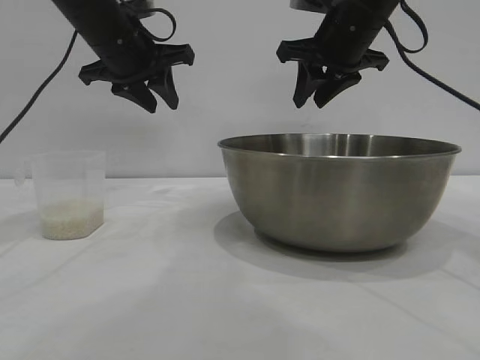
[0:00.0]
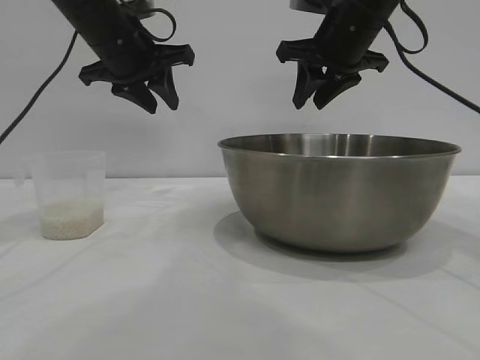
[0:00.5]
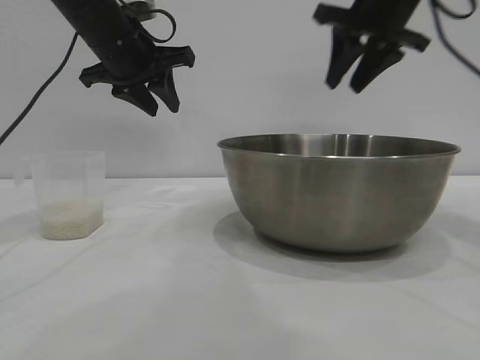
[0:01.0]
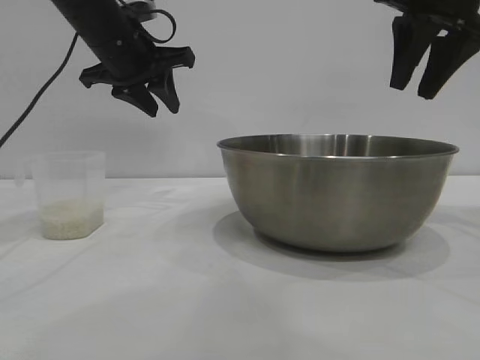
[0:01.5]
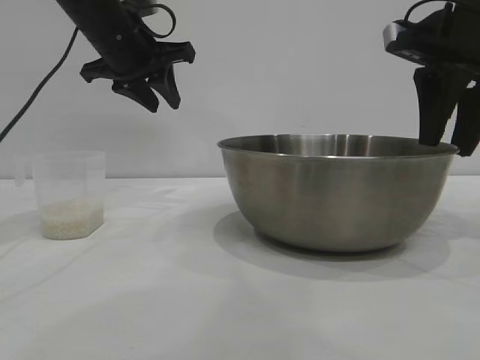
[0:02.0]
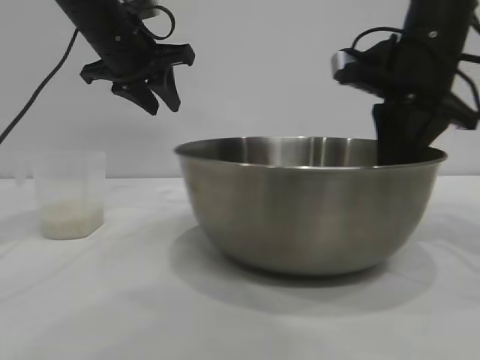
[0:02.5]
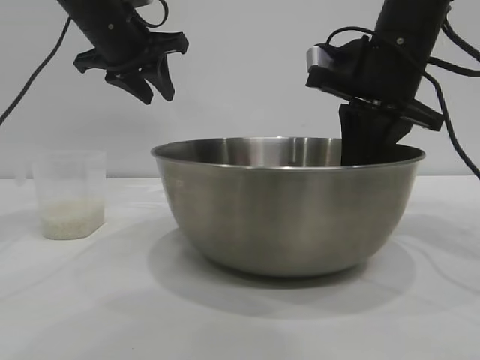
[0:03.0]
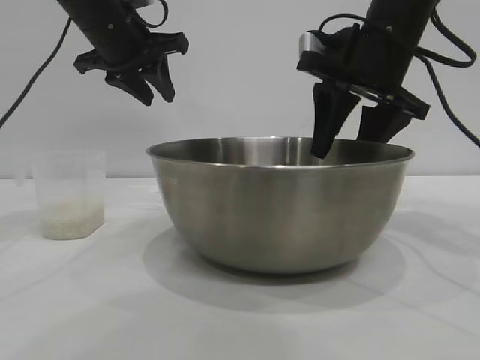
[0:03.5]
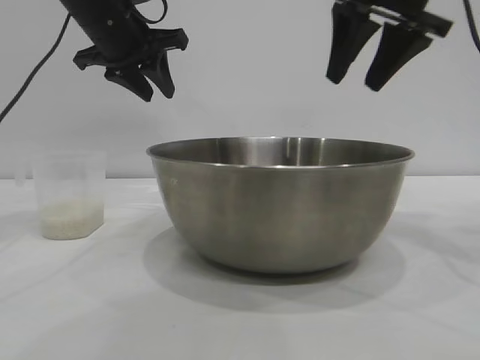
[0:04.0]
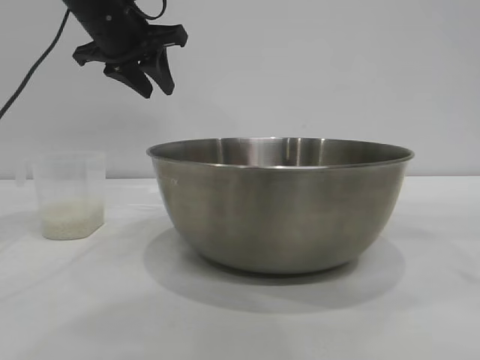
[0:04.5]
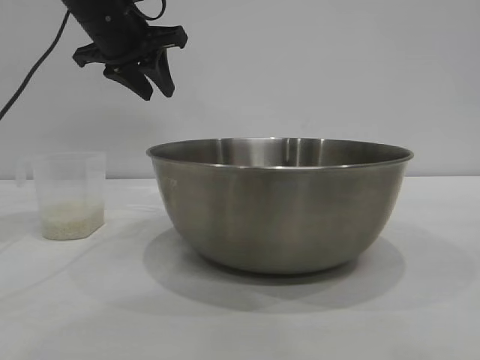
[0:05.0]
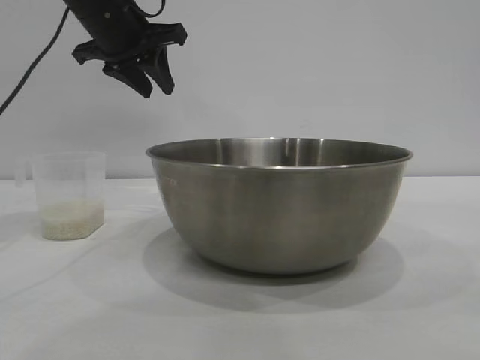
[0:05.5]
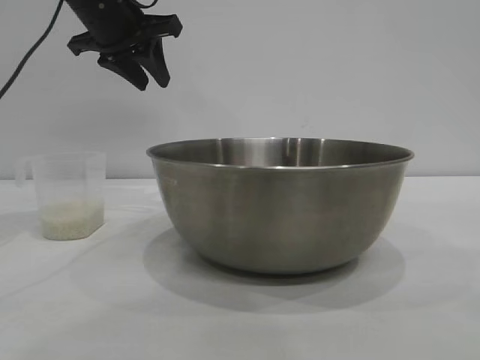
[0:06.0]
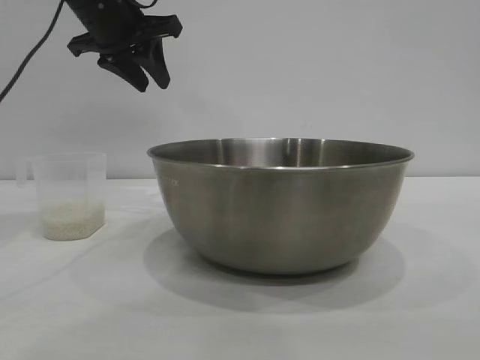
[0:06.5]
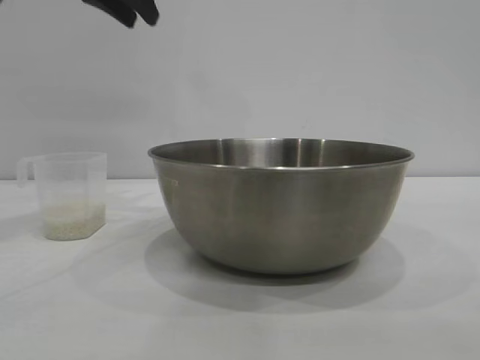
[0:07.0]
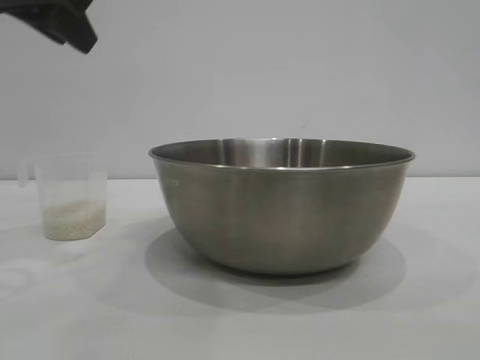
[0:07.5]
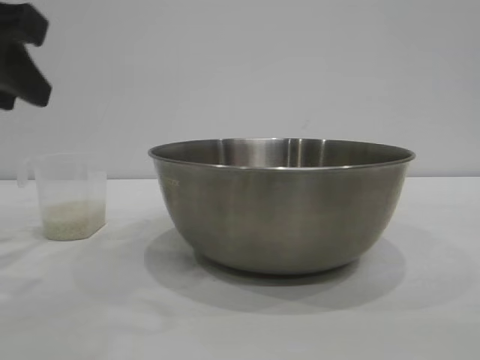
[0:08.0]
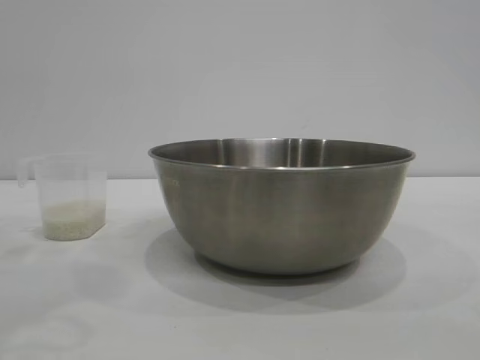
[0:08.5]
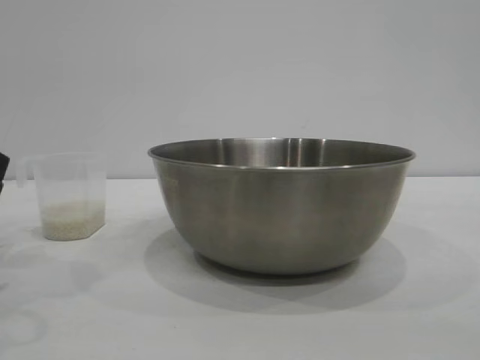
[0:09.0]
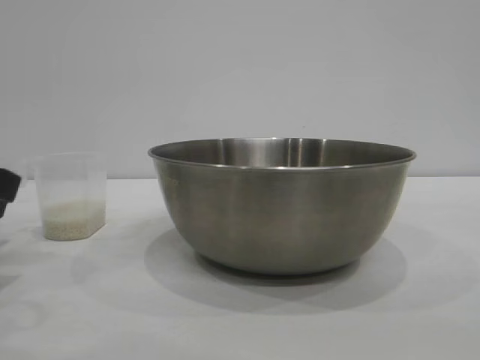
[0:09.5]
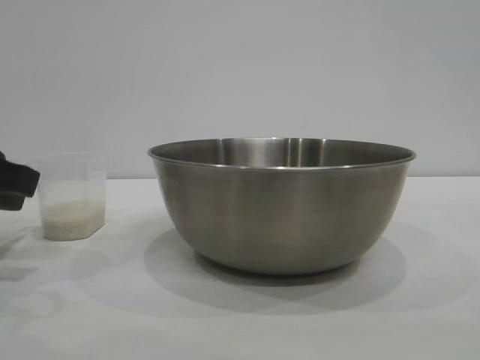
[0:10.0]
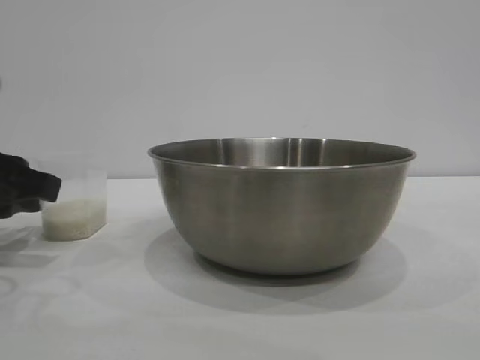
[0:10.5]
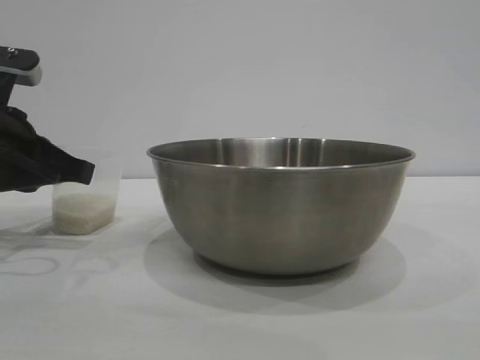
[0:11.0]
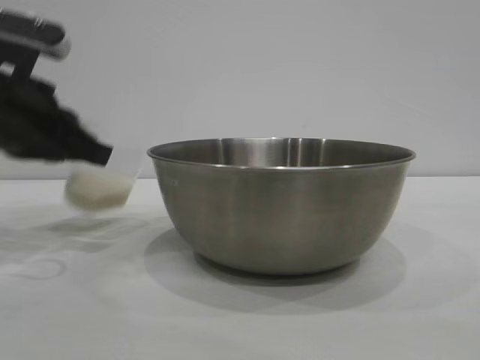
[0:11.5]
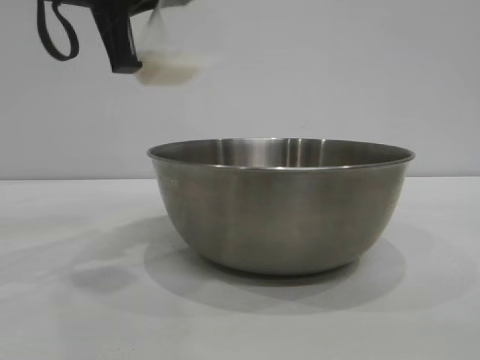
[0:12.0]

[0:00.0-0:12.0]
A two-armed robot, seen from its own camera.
Task of the whole recording: the right gripper grasp the rice container and place it in the center of the table, the left gripper grasp the rice scoop and pour the rice into the rice container.
Step, 0:00.0 to 0:03.5: Move the bowl to the center of view with the right gripper.
Step, 0:04.0 to 0:11.0: Pick up the cup with rice in it with the left gripper.

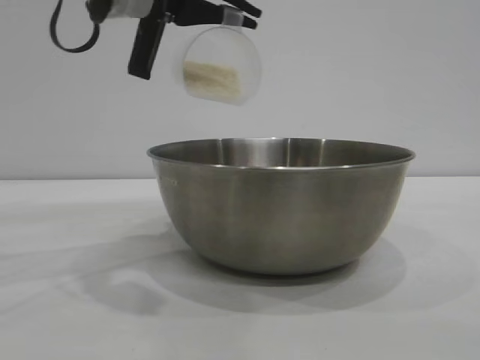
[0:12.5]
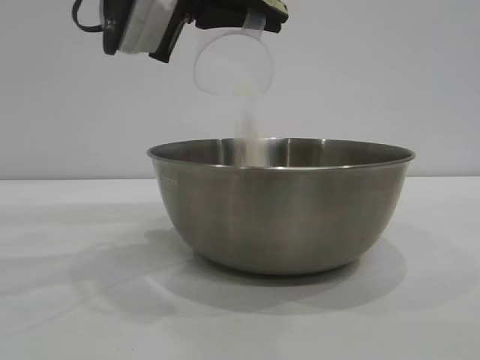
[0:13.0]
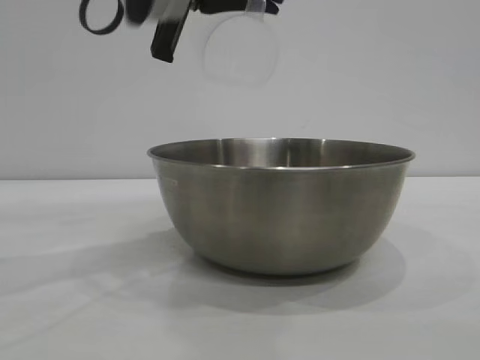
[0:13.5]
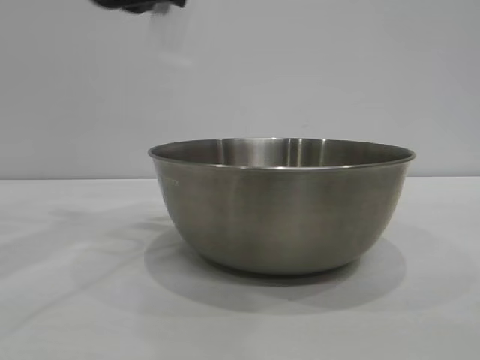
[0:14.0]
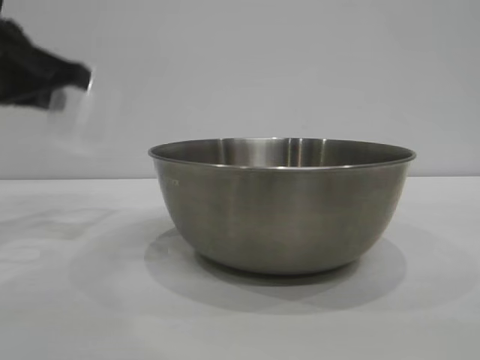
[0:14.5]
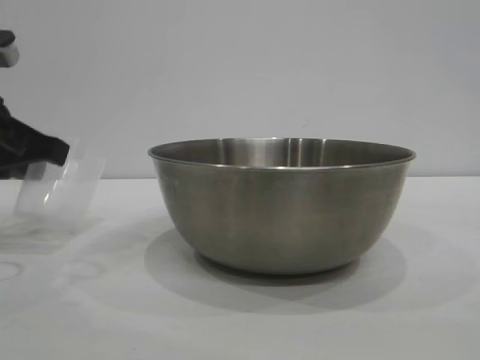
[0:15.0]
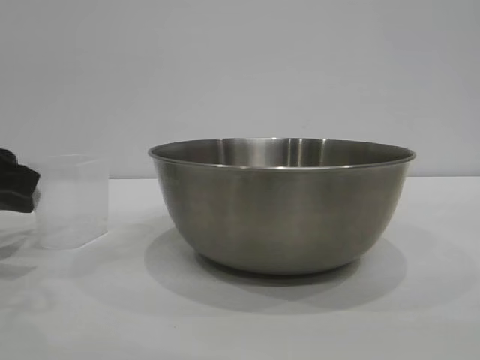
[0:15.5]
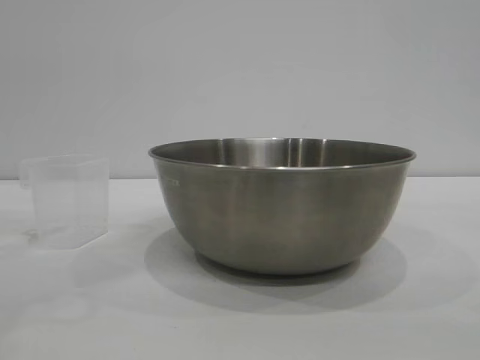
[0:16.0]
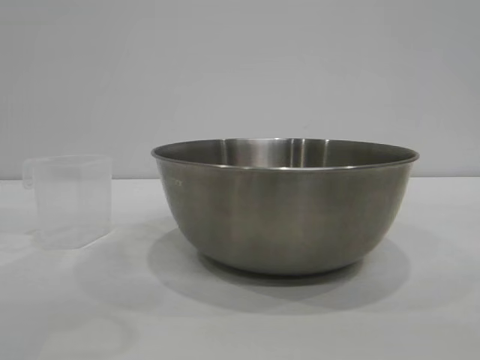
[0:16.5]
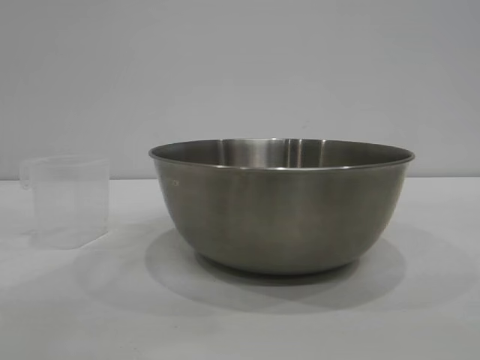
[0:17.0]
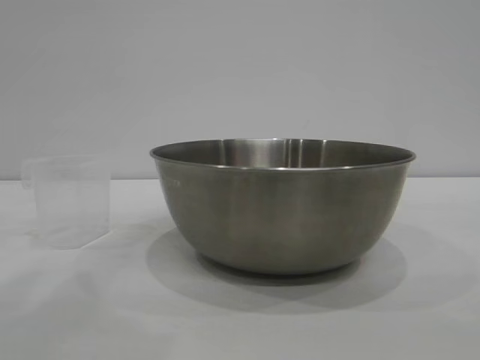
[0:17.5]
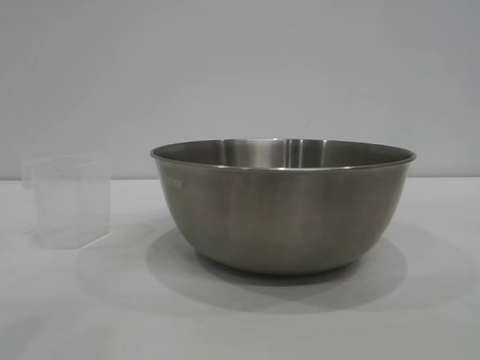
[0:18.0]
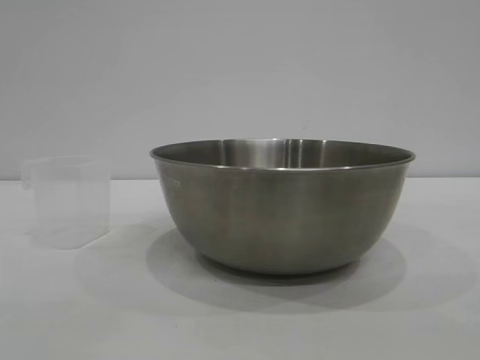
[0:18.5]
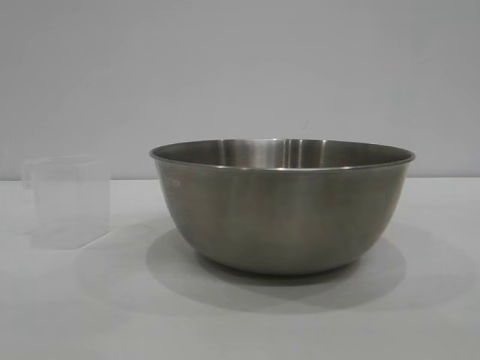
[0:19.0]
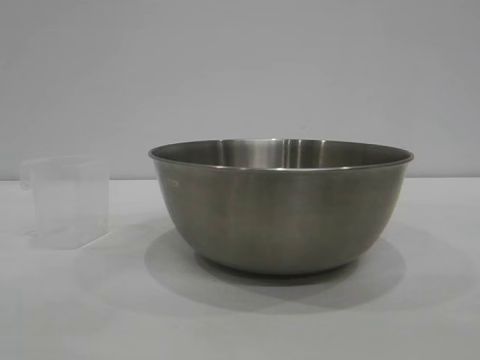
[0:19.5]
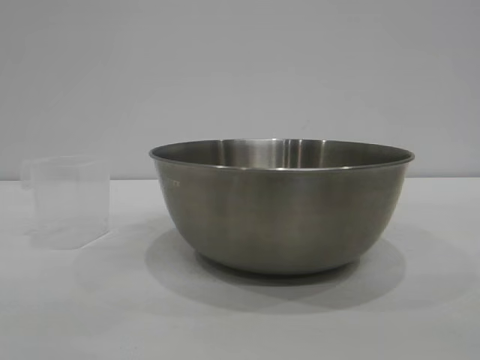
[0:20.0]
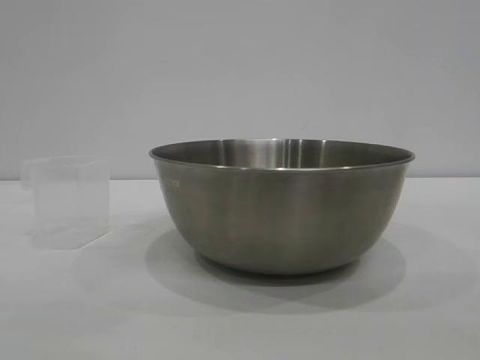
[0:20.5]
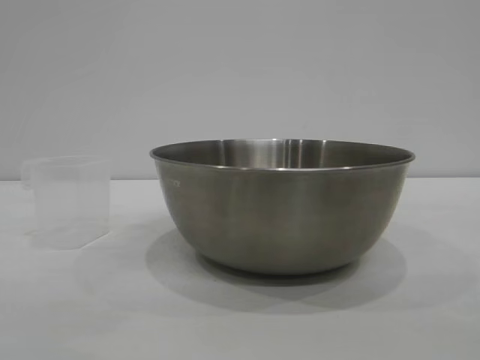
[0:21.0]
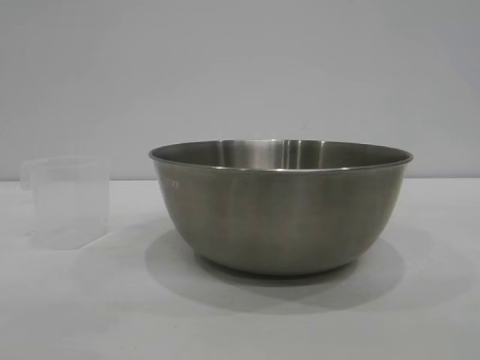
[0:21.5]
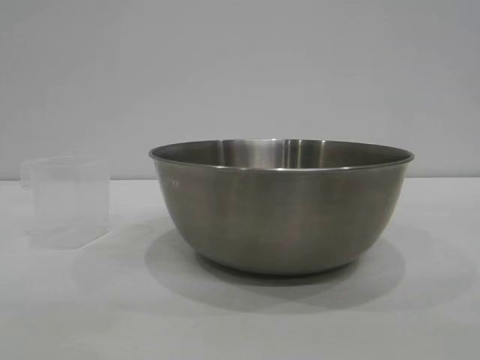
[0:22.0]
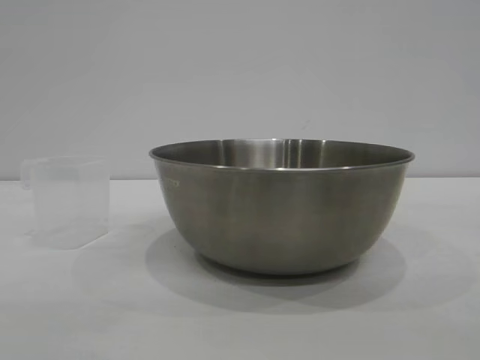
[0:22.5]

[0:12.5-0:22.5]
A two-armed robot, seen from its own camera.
Task of the whole recording: the right gripper grasp the rice container and place it in the center of the table, the left gripper grasp the rice scoop and pour the rice into the rice container.
Step, 0:14.0 to 0:15.5: Place the cup on the table with the left gripper.

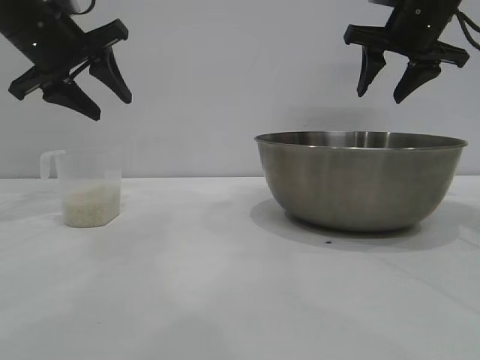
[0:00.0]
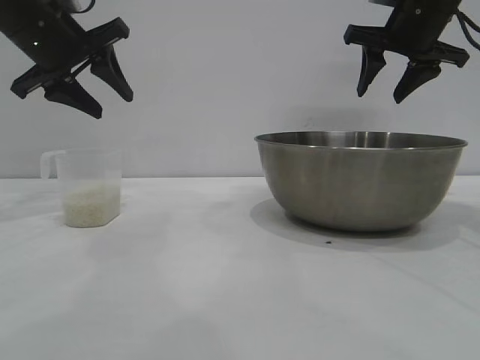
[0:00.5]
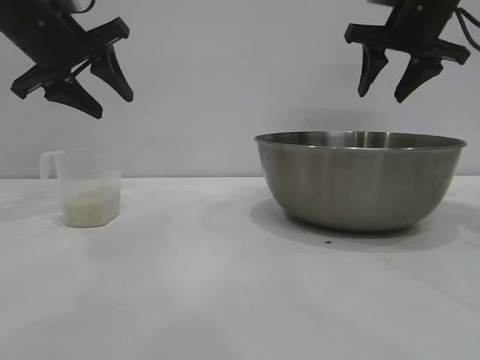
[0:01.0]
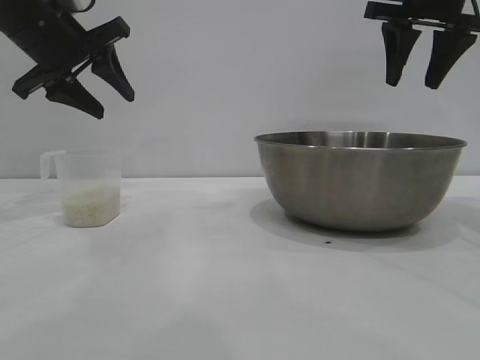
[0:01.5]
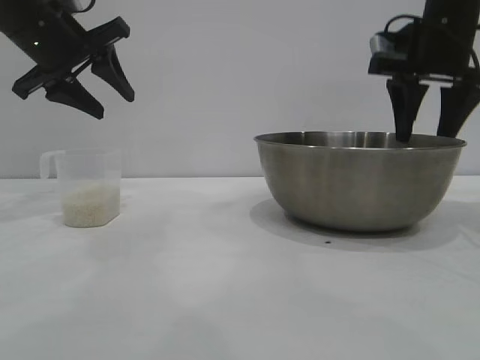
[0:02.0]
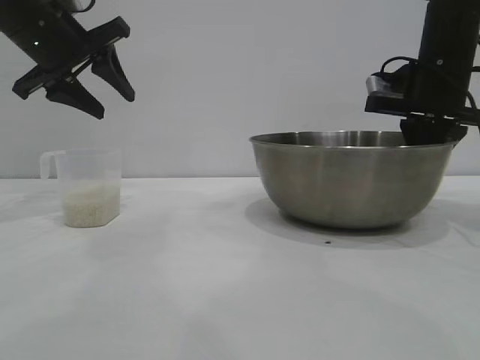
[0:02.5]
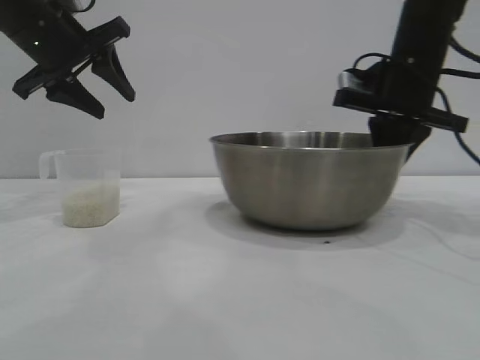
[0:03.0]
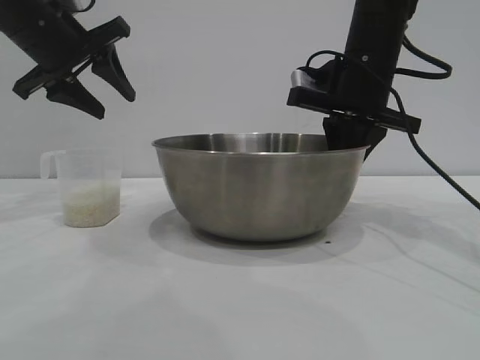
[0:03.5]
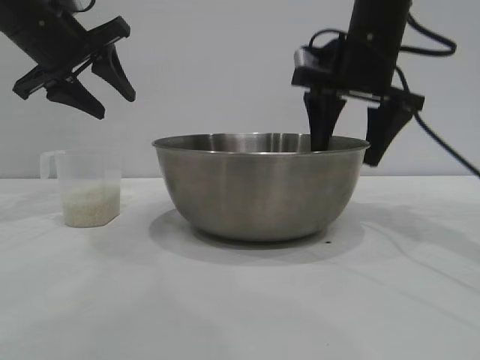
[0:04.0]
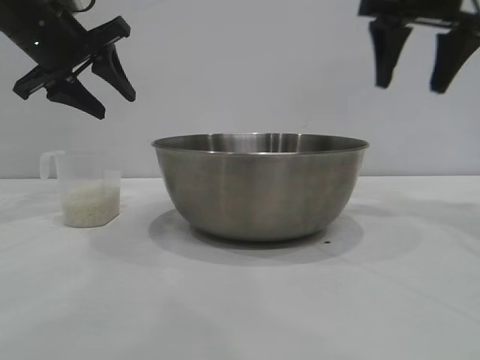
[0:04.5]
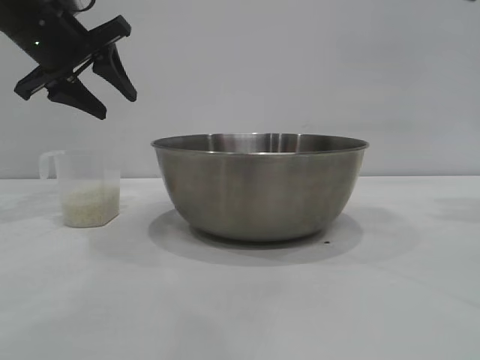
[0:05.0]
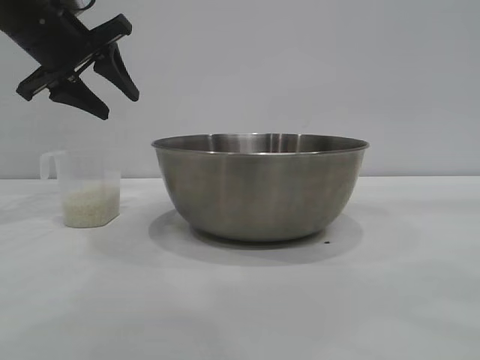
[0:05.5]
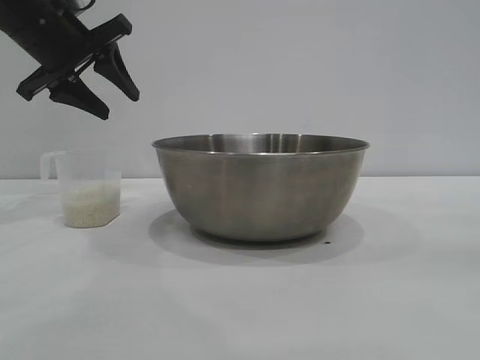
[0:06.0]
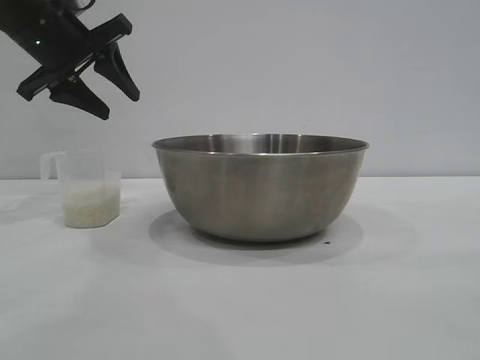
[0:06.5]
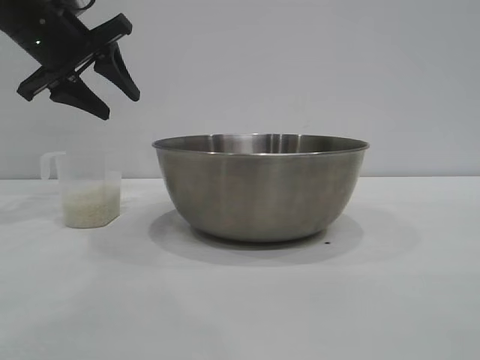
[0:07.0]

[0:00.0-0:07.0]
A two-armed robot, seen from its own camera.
Task of the whole recording: the right gripper grasp the rice container and place it in the center of the table, the left gripper grasp the rice scoop and pour the rice into the rice container.
Step, 0:00.0 to 0:04.0: Move the bowl to the center of view with the right gripper.
